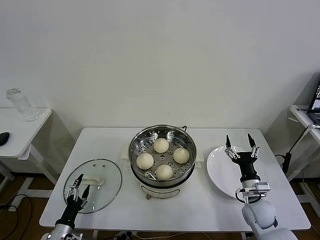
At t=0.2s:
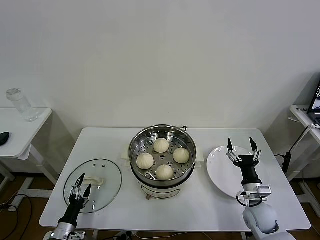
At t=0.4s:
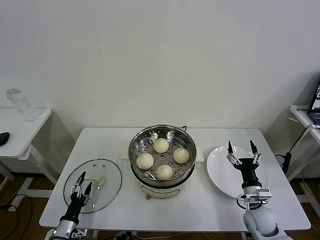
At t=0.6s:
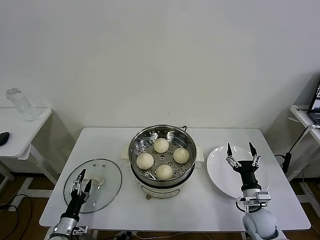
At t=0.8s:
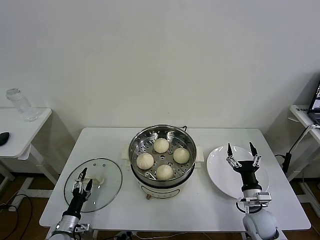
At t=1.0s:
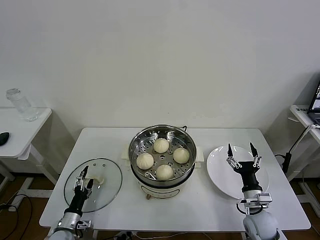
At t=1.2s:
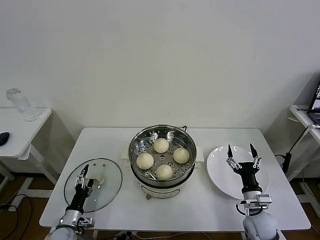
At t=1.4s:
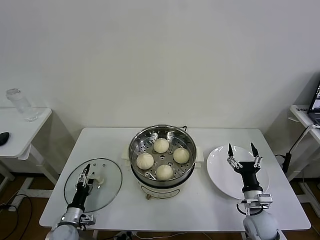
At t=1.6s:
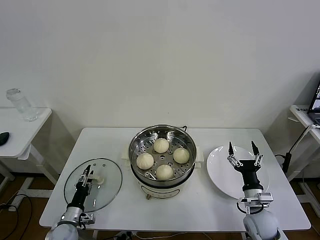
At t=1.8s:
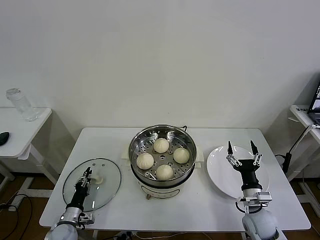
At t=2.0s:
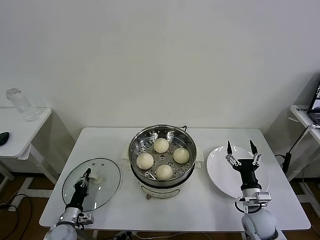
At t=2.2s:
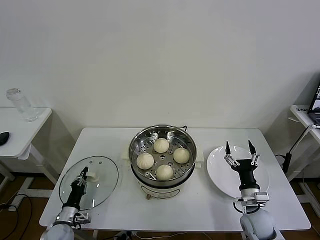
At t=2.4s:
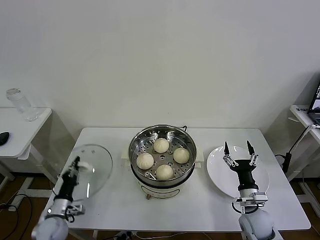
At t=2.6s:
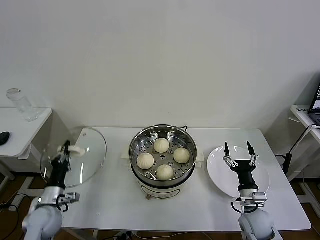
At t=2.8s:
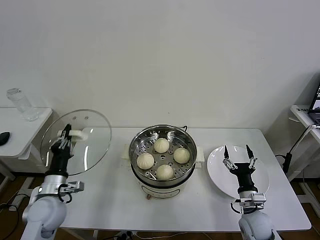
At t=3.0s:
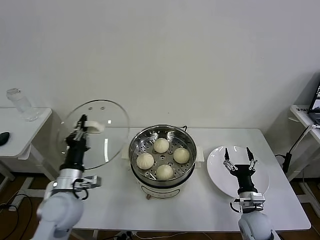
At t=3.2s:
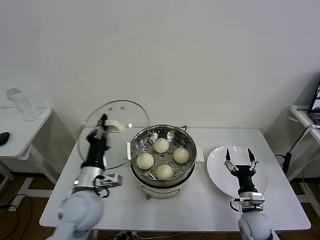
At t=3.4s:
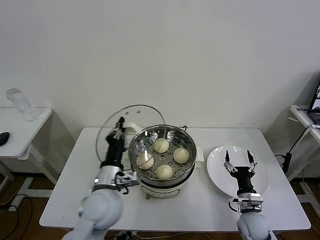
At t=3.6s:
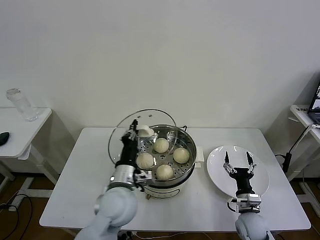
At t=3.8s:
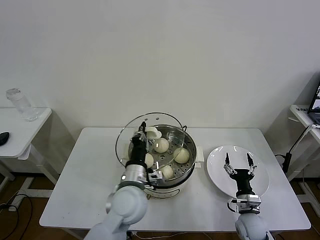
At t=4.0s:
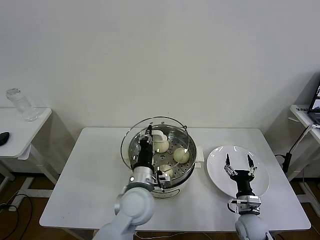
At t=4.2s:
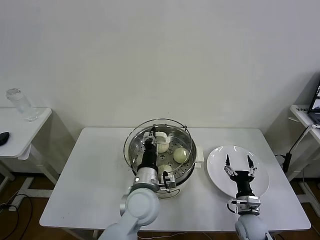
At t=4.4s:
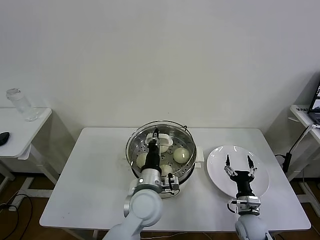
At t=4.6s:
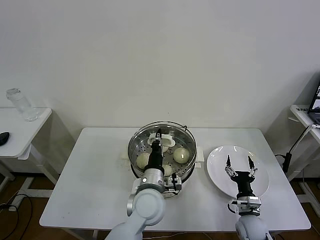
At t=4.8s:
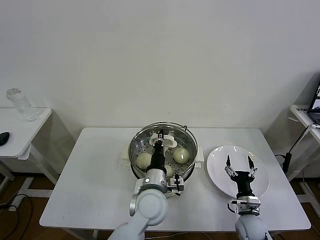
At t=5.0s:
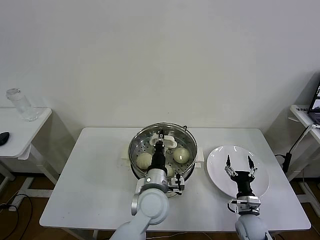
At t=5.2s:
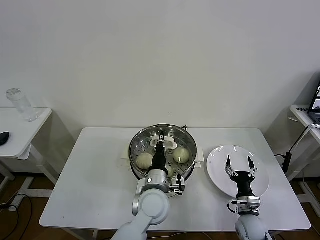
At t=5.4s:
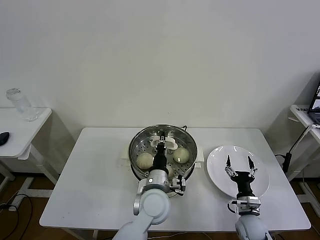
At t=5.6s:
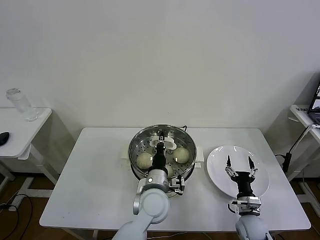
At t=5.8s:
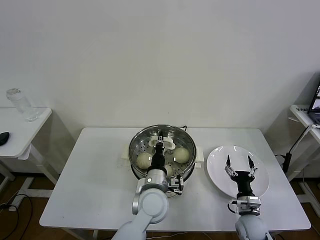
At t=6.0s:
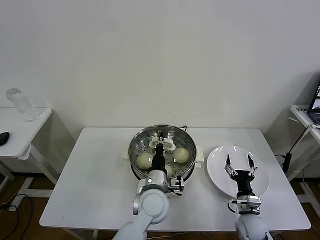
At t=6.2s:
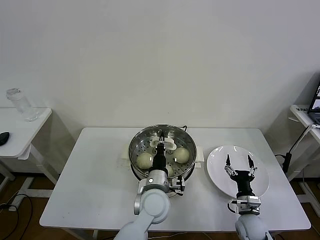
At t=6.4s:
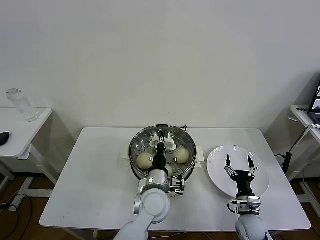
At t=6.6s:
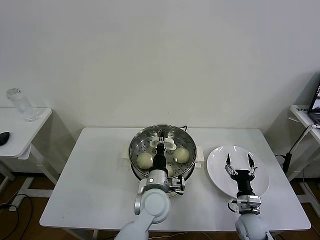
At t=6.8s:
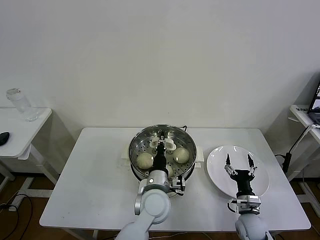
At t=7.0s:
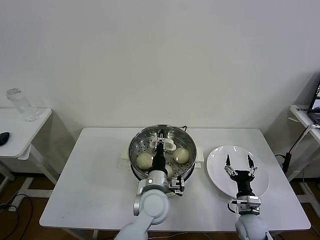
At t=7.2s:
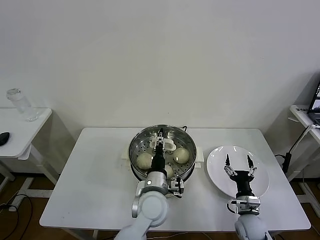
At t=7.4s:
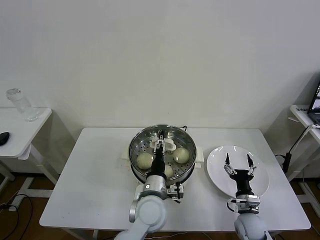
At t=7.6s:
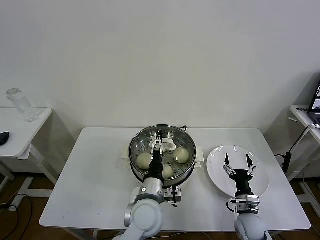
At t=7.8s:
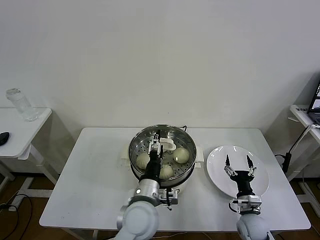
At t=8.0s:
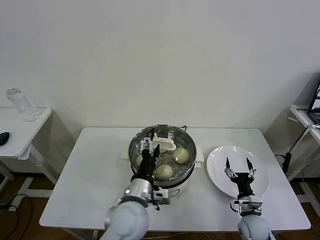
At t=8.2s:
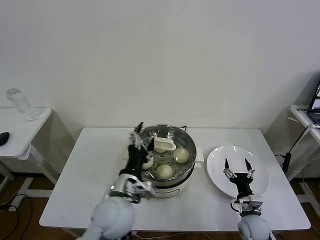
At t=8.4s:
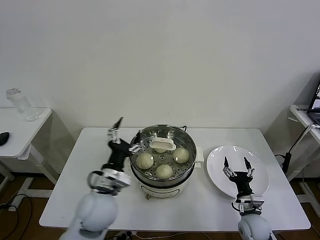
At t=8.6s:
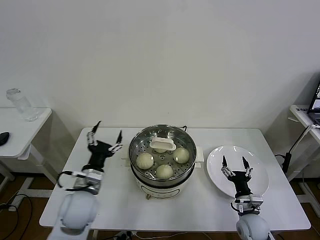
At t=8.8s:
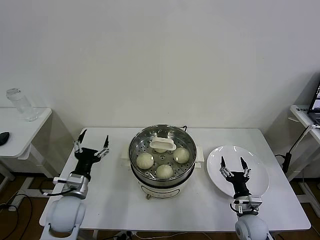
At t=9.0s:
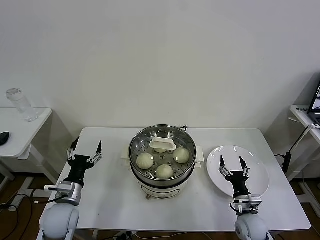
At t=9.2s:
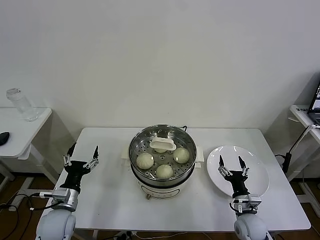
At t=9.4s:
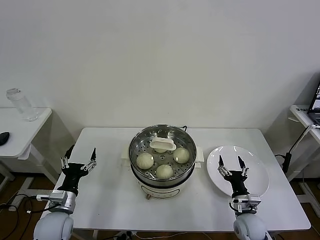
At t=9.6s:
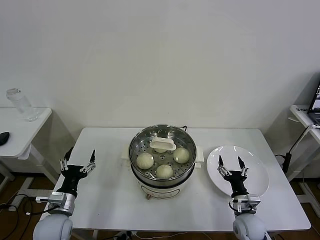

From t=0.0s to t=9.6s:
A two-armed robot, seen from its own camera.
Task of the whole recording: take steamed baozi put them in steamer then cover it.
Step, from t=0.0s to t=2.2s: Grasp the pot lid with left gripper.
Step, from t=2.4s to t=7.4s: Place the pot lid on the steamer with left gripper.
From t=0.0s to t=1.6s: The left gripper heads forward, covering roughly 5 cm, and closes up.
From t=1.6s to t=3.2s: The left gripper shifts roughly 30 cm upward and to the right, and closes.
From t=3.2s to t=4.8s: The left gripper travels to the right by roughly 20 cm.
From t=4.8s to t=6.4s: The grippers make only small movements.
From t=6.4s to t=8.0s: The left gripper shifts some 10 cm backward and to the left, and opens.
From t=8.0s to t=9.6s: The left gripper goes approximately 25 cm to the left.

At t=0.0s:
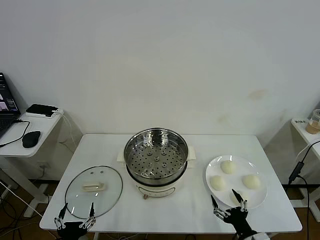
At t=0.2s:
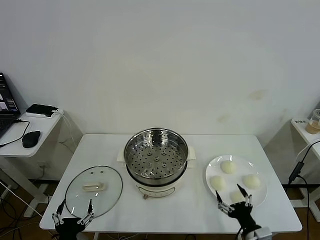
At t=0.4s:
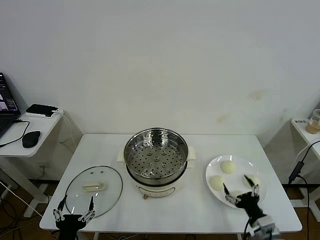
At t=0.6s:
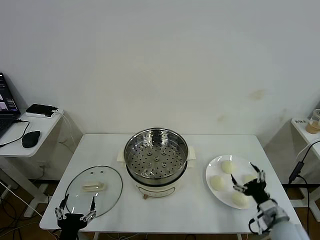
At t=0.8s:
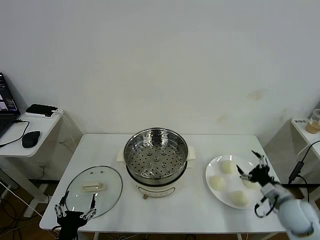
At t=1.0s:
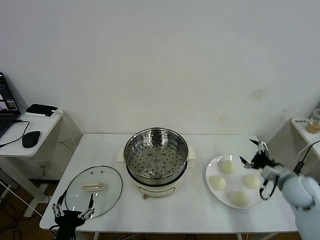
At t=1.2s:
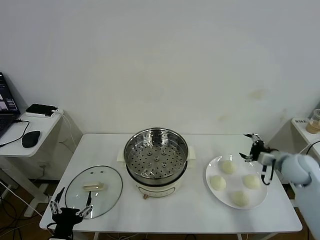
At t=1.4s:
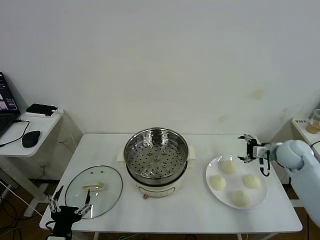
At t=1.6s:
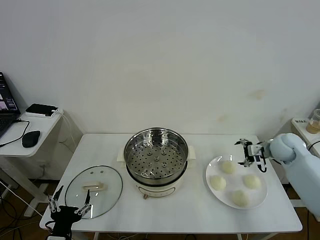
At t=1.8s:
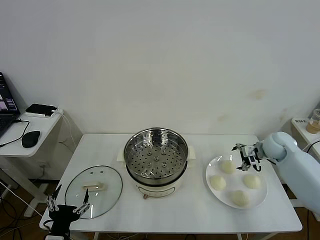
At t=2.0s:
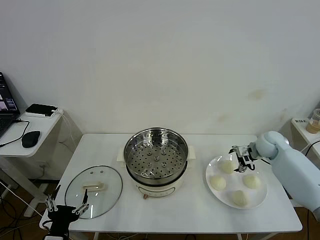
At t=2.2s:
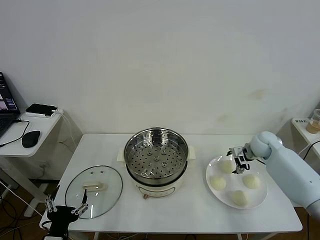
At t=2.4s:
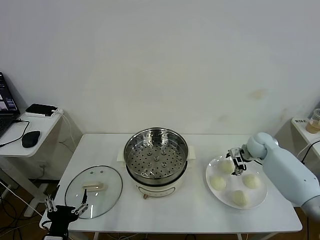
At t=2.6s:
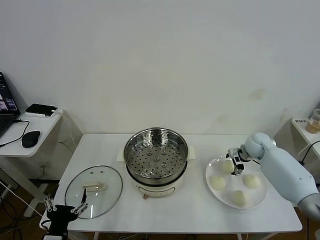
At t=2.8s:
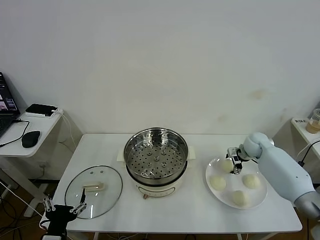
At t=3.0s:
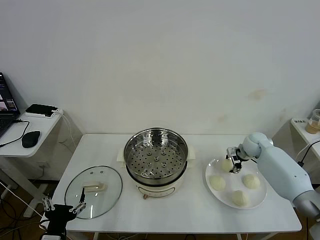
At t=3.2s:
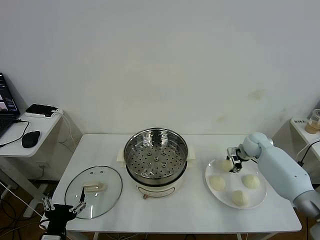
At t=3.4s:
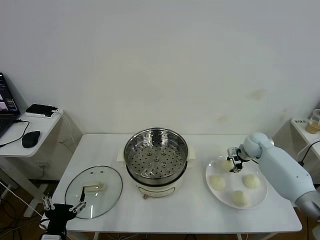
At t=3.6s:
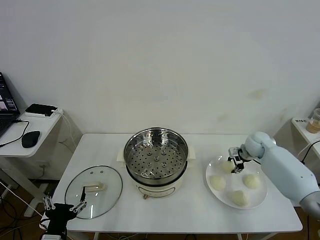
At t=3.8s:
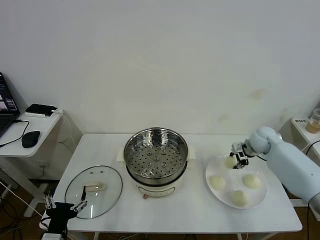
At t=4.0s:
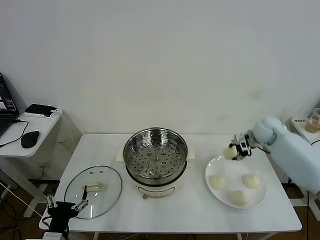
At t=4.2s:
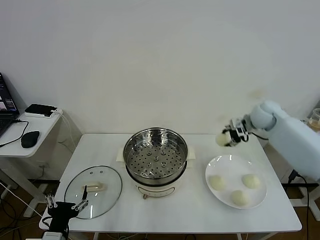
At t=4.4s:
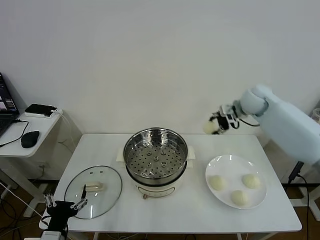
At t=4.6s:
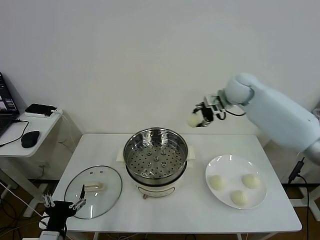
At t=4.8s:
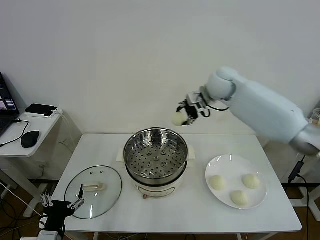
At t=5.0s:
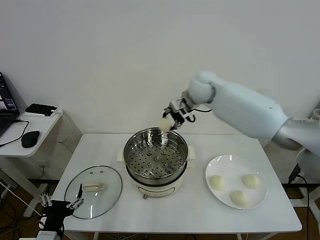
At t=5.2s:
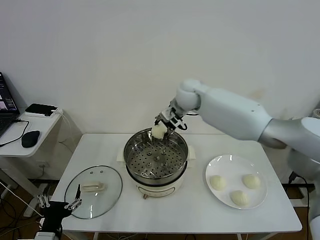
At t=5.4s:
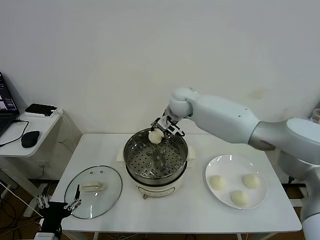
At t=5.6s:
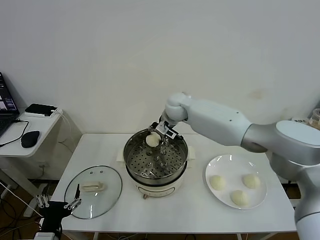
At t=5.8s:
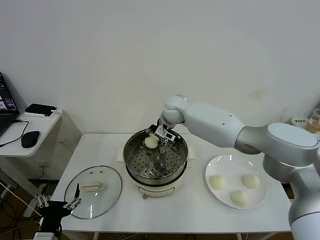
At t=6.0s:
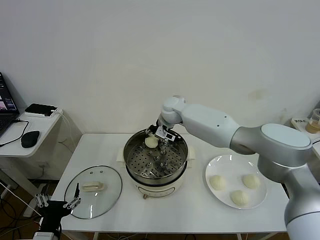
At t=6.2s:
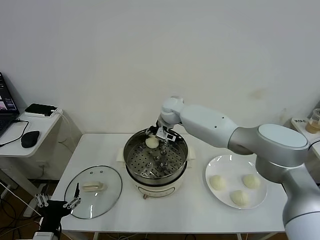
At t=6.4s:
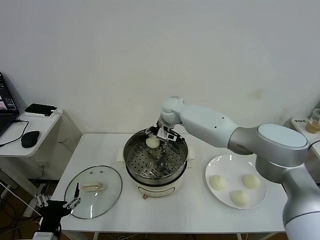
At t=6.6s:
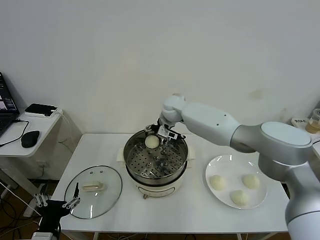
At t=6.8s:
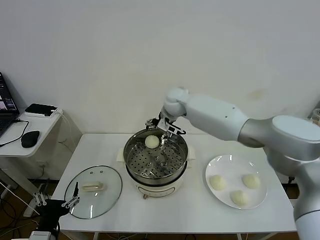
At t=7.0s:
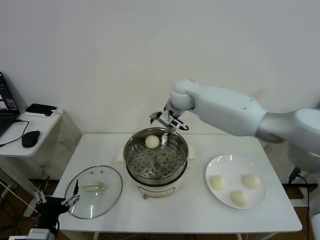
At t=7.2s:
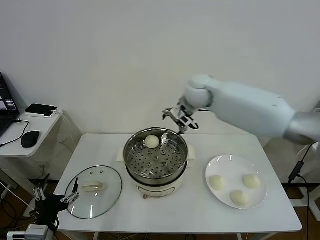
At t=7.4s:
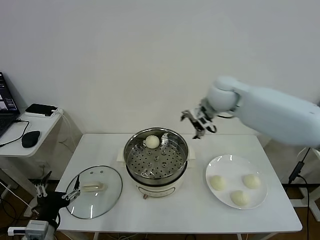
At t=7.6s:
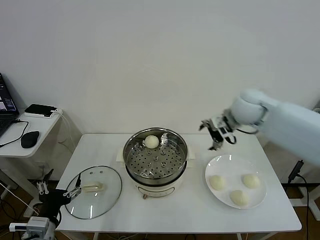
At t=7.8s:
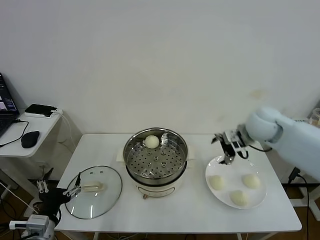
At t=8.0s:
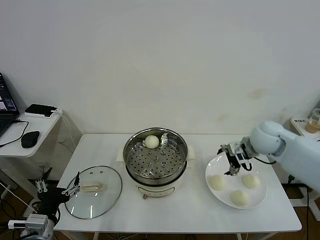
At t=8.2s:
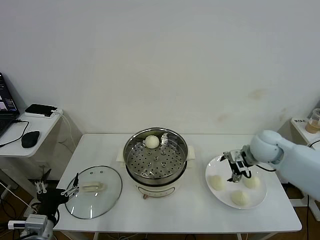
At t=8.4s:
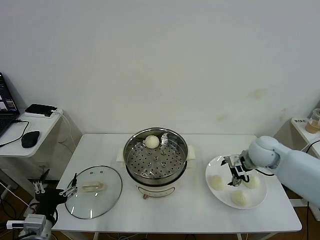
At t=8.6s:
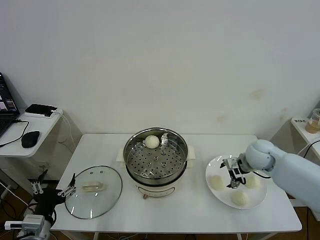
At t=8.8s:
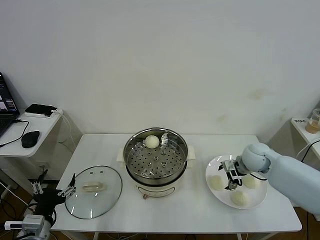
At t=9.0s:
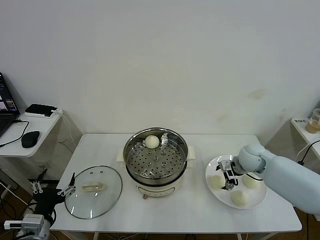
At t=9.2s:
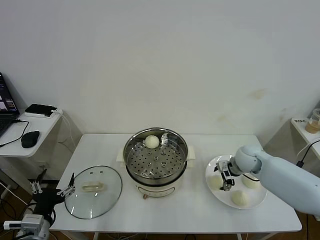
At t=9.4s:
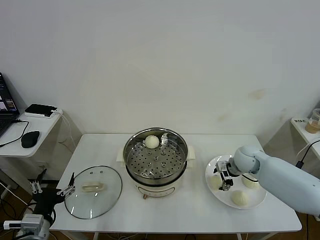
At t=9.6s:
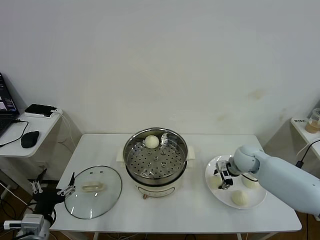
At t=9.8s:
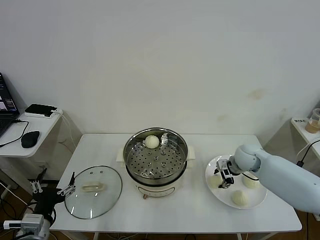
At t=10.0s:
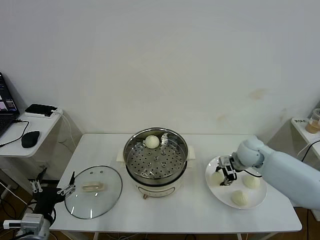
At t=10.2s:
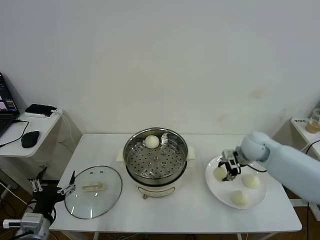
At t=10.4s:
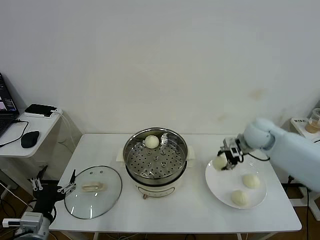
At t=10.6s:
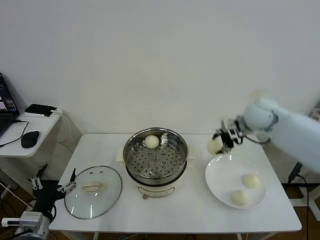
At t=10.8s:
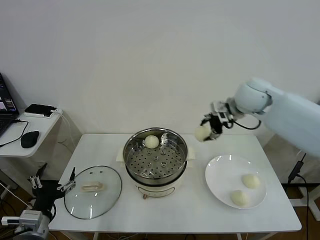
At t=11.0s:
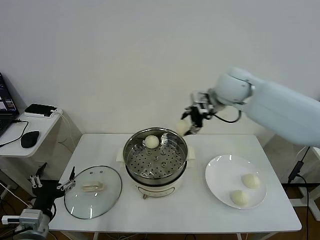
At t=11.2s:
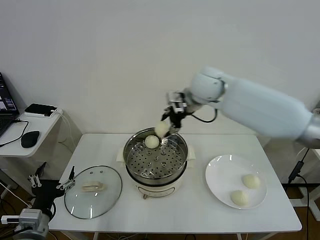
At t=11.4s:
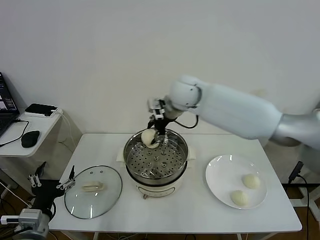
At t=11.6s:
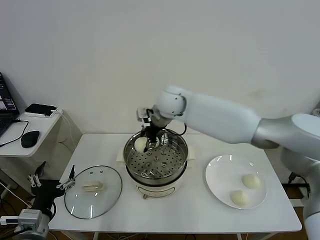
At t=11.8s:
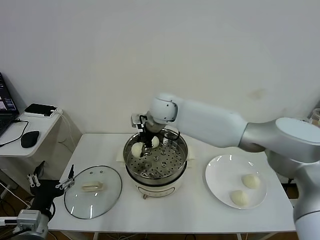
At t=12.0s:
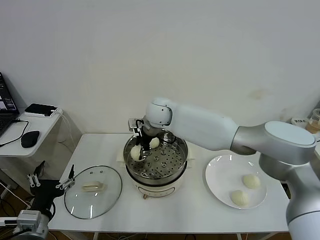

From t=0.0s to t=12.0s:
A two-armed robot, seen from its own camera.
Task of the whole recording: take steamed baozi put them in steamer then cover it.
Step, from t=0.0s to t=3.0s: Grasp the baozi in the plate with right gripper.
Step, from t=3.2s to t=6.6s: Place the baozi on the steamer with right gripper.
Step, from t=6.8s to t=10.0s: Grasp the baozi in the plate with right gripper.
From t=1.6s to t=3.0s: The right gripper goes some 10 cm downward and forward, and closes.
From t=3.0s to t=4.4s: The right gripper moves upward, some 20 cm.
From t=4.4s to t=6.0s: The right gripper travels to the left by about 25 cm.
From t=6.0s to t=7.6s: The right gripper goes approximately 25 cm to the right and backward, and opens its fingers.
From t=7.6s to t=9.0s: The right gripper goes some 20 cm downward.
From t=9.0s to t=10.4s: The right gripper travels upward by roughly 10 cm, and closes up.
From t=10.4s to t=12.0s: The right gripper goes roughly 35 cm to the left.
